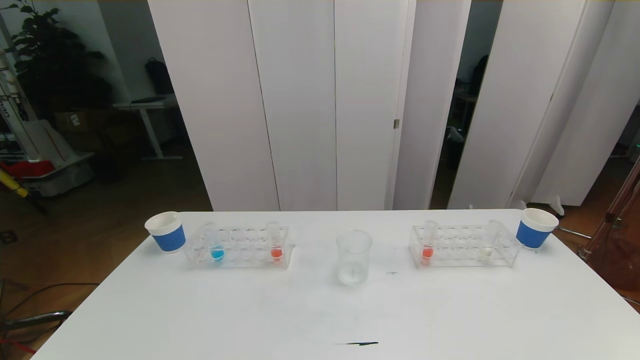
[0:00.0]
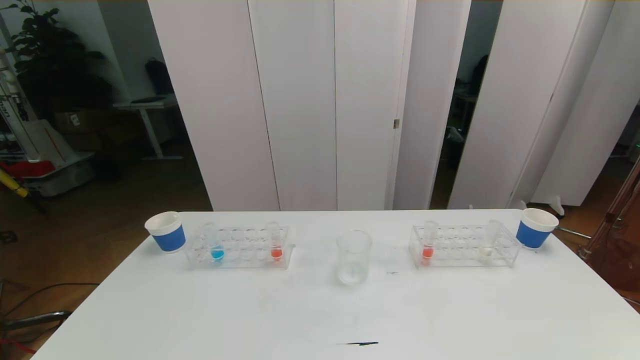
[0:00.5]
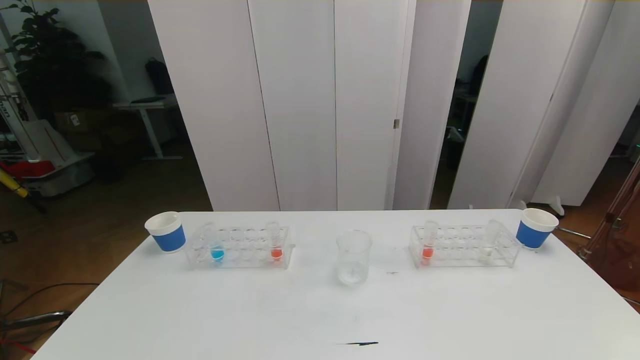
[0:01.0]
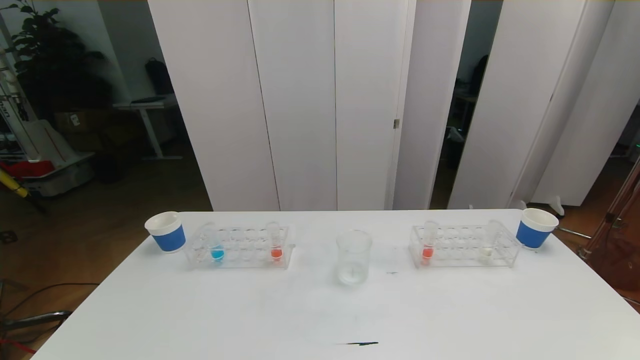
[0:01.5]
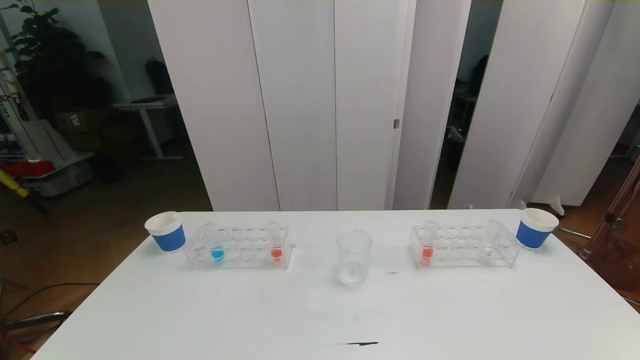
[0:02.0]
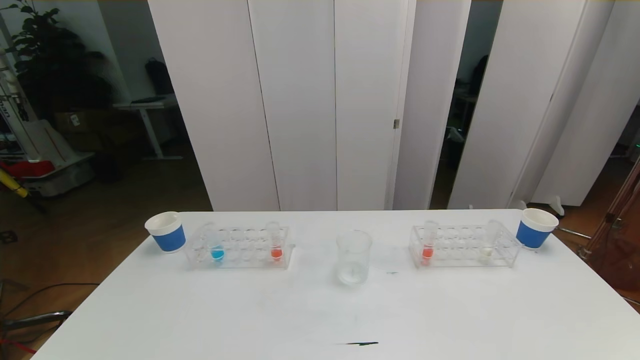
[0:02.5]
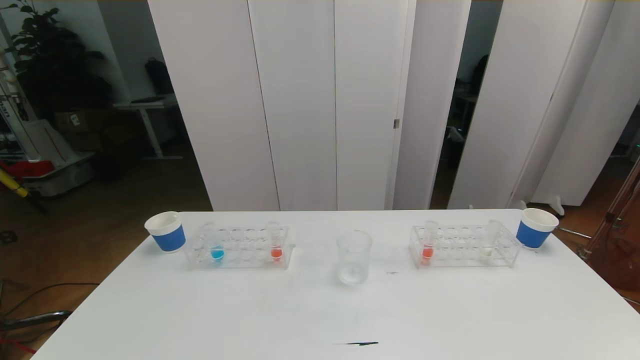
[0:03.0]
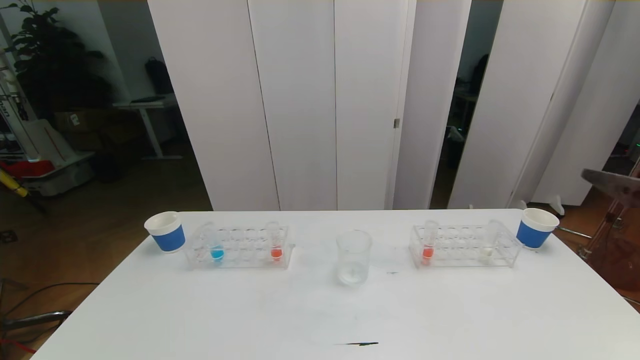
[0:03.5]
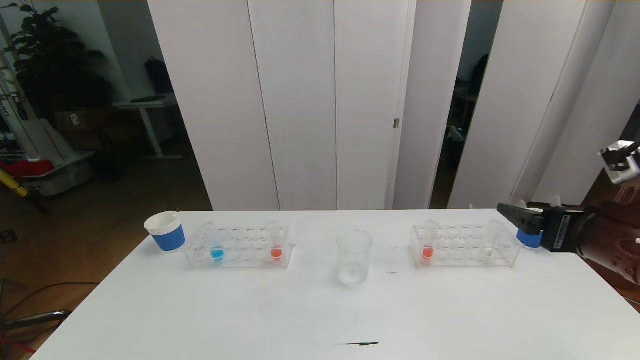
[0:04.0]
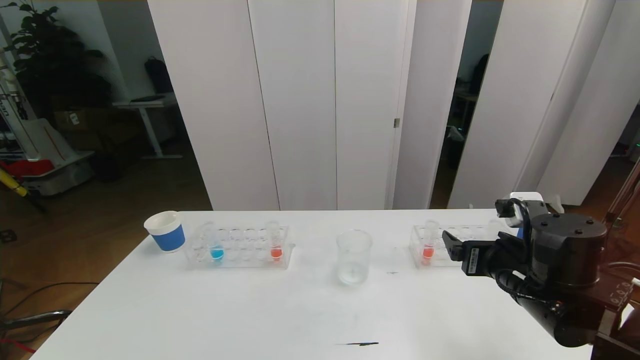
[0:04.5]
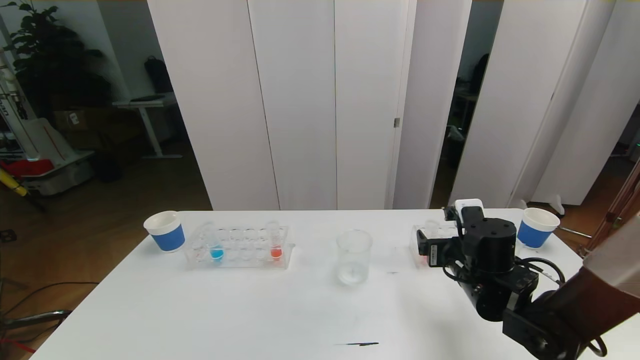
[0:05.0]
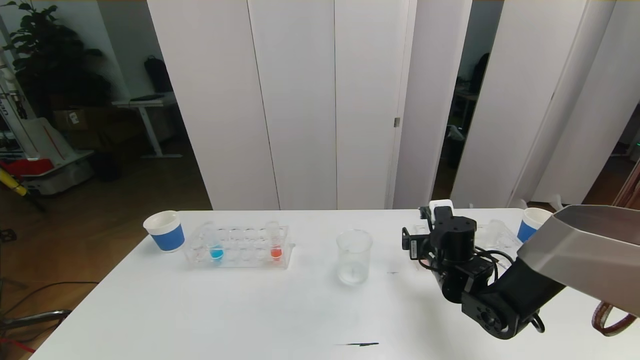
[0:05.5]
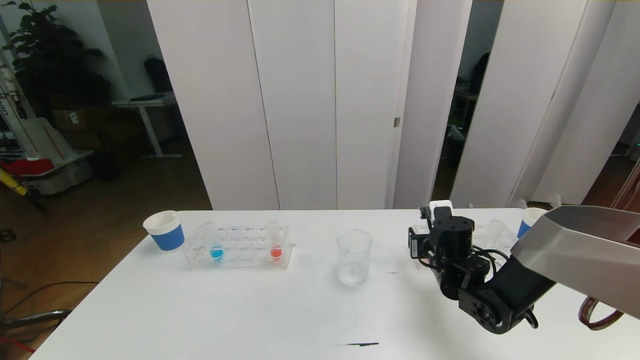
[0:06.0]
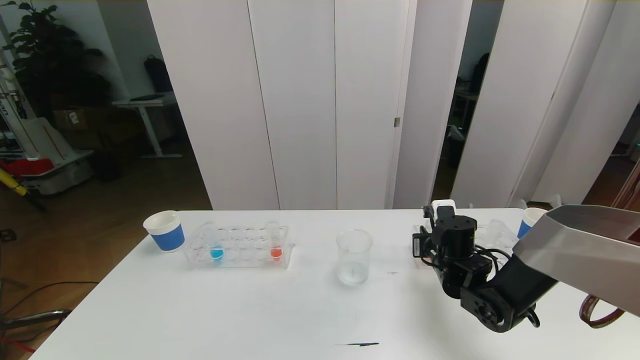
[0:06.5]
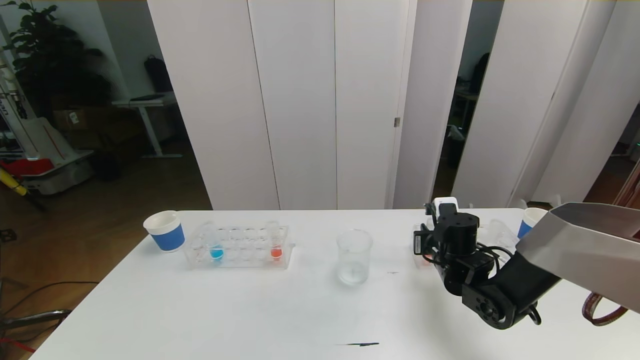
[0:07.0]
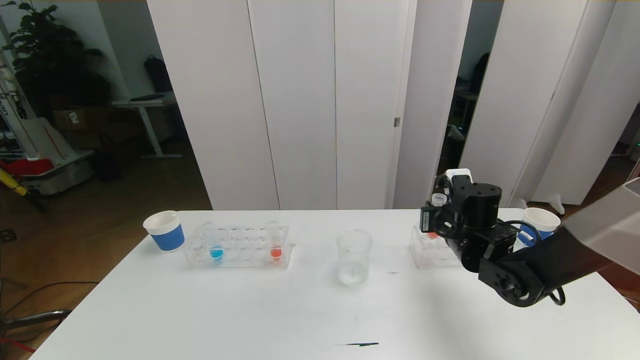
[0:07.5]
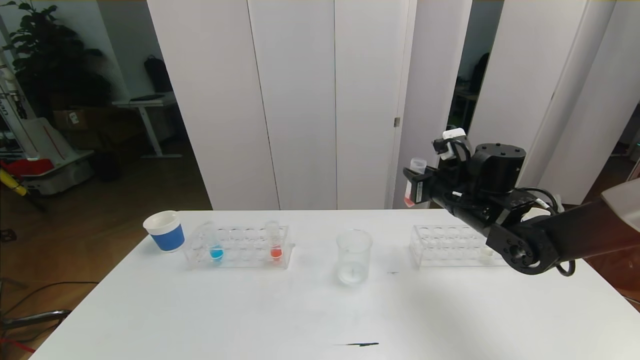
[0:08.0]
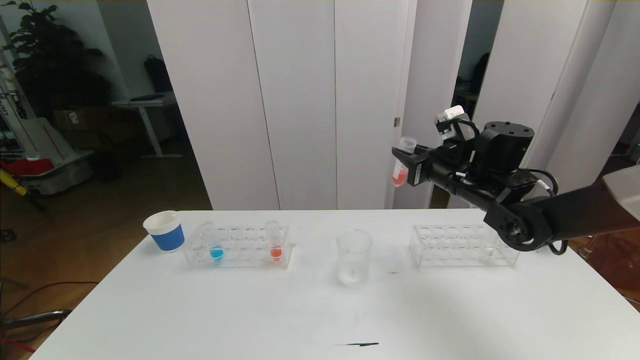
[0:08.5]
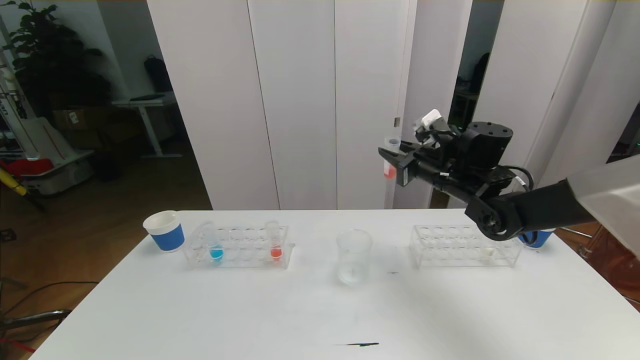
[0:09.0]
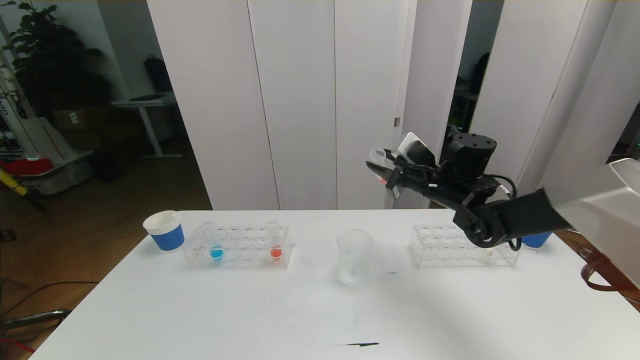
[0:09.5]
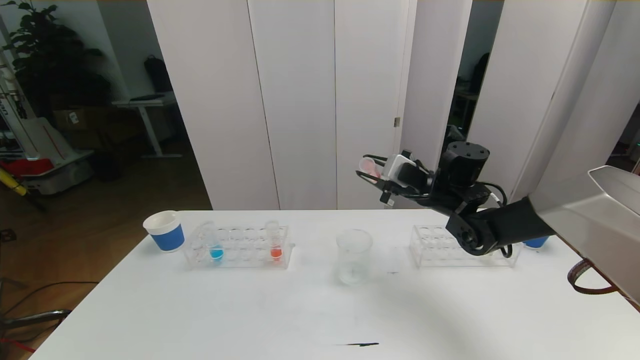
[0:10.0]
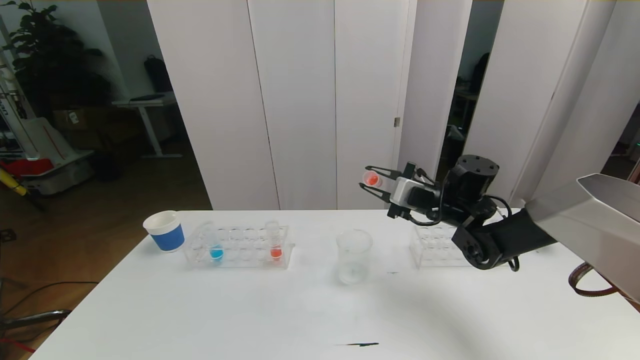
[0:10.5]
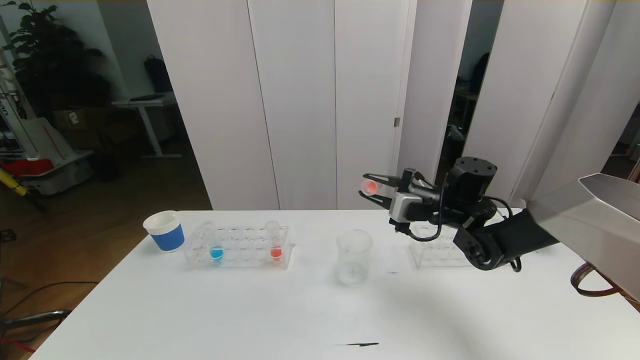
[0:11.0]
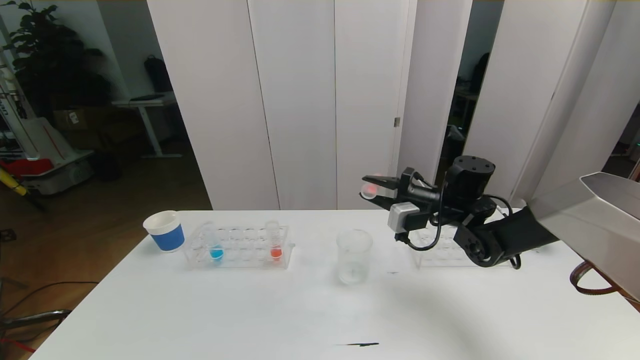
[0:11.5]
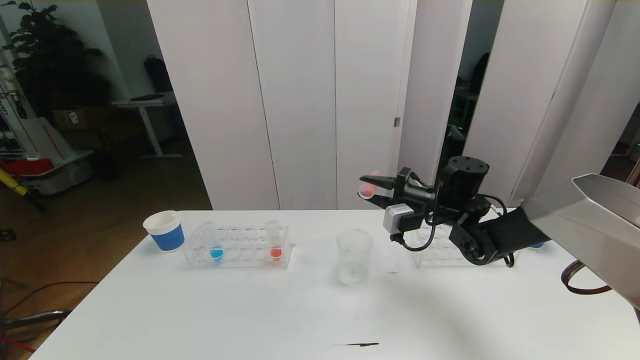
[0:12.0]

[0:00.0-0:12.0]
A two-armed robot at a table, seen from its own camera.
Task of the whole recording: pick up the test tube with red pigment the test tube with blue pigment and the test tube with white pigment by grippers and pour them into the beaker.
0:00.0 to 0:02.0: Both grippers stay put.
0:02.0 to 0:04.0: The right gripper goes about 25 cm forward and upward.
0:04.0 to 0:06.0: The right gripper travels downward, forward and to the left by some 25 cm, and closes.
0:06.0 to 0:08.0: The right gripper goes roughly 15 cm upward, and closes up.
0:08.0 to 0:10.0: The right gripper ends up about 5 cm from where it was.

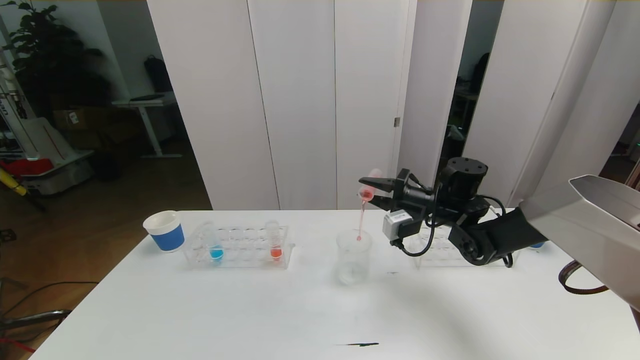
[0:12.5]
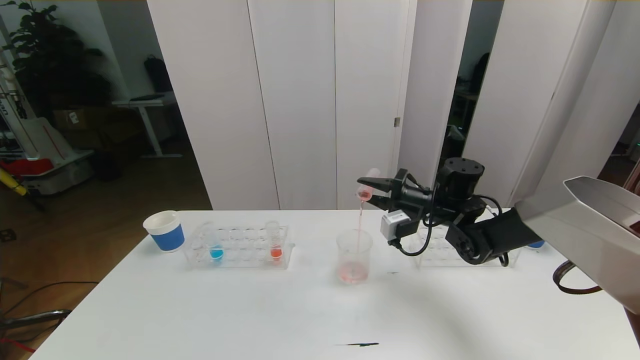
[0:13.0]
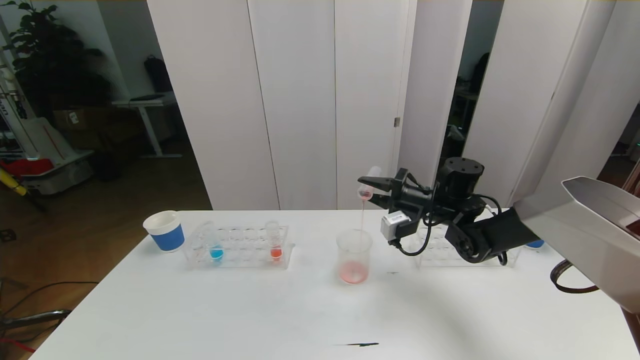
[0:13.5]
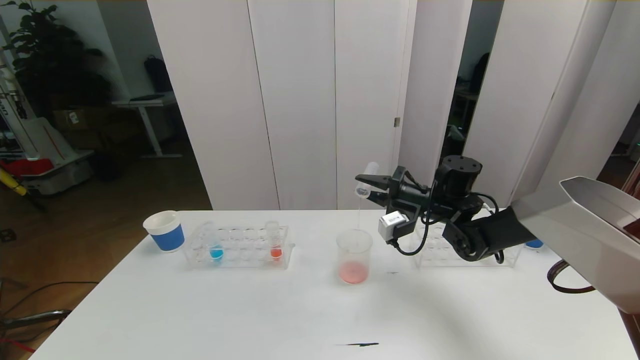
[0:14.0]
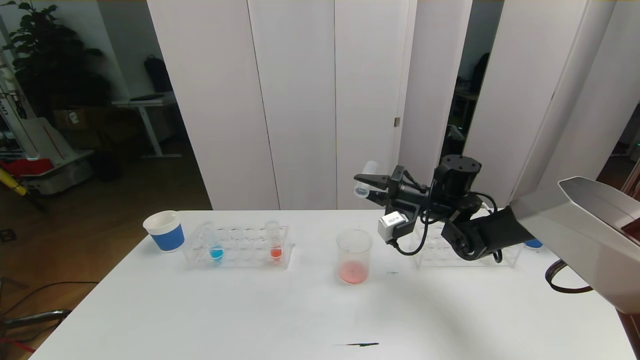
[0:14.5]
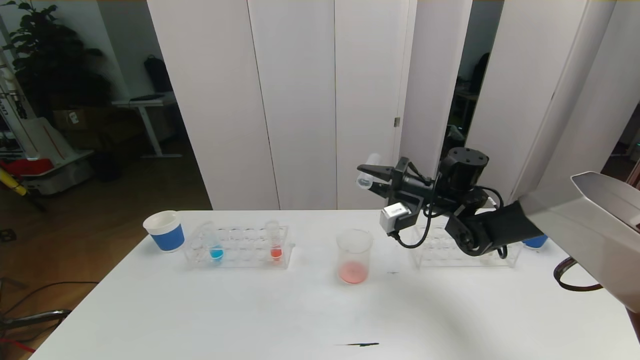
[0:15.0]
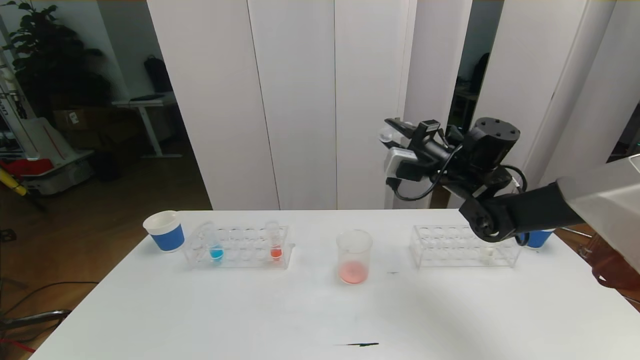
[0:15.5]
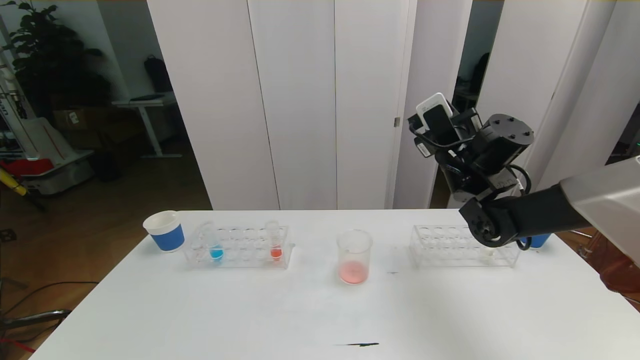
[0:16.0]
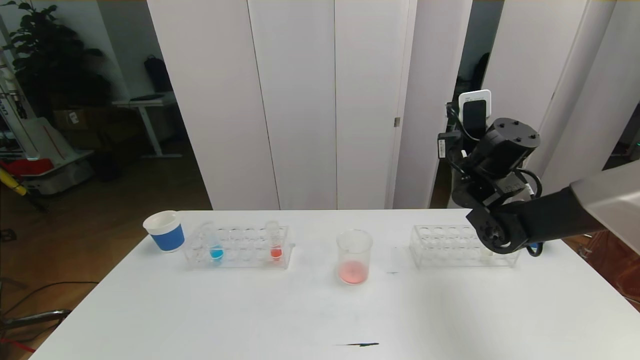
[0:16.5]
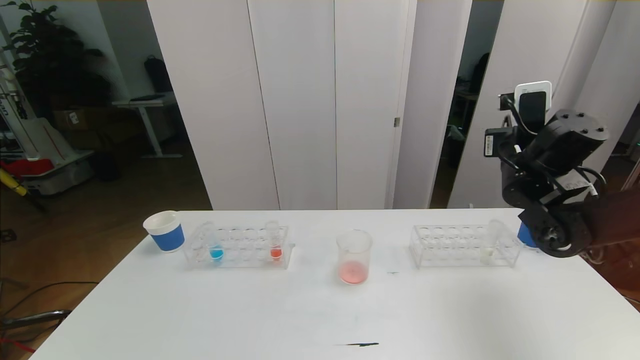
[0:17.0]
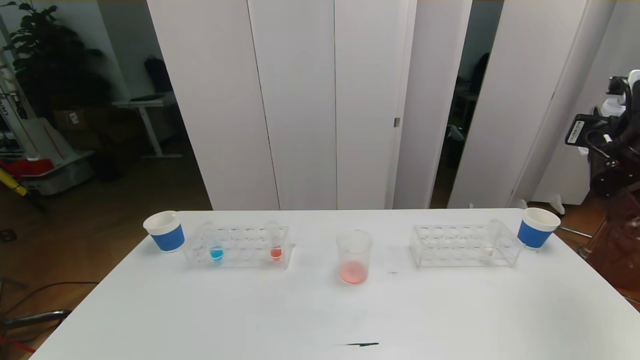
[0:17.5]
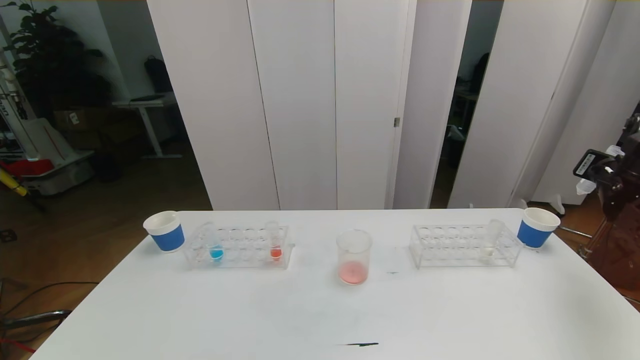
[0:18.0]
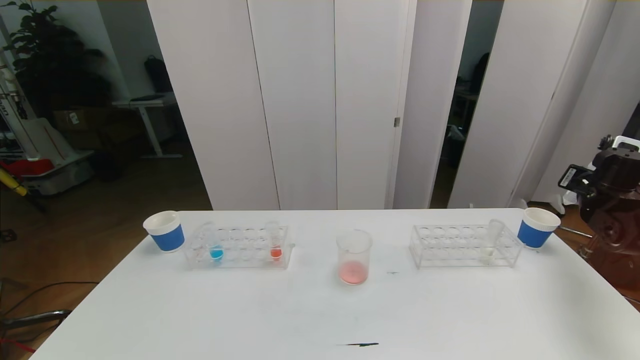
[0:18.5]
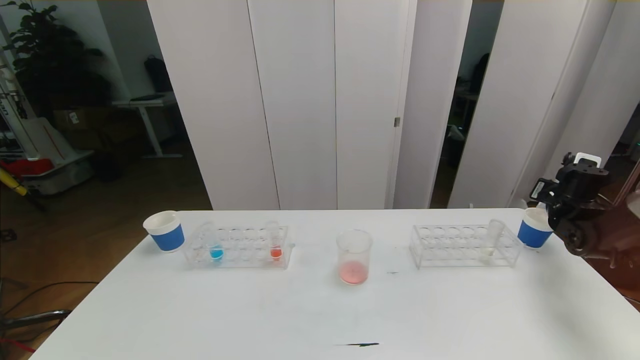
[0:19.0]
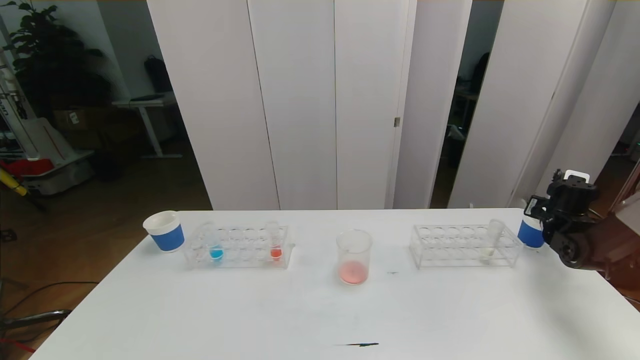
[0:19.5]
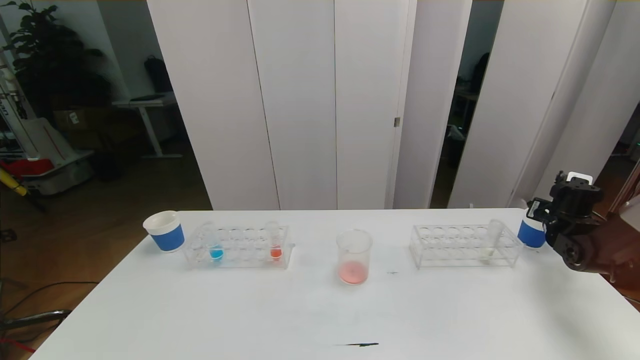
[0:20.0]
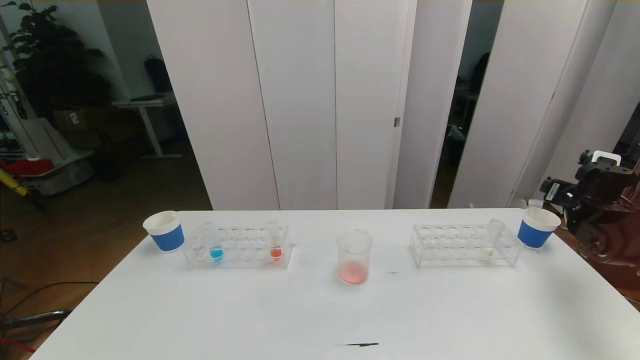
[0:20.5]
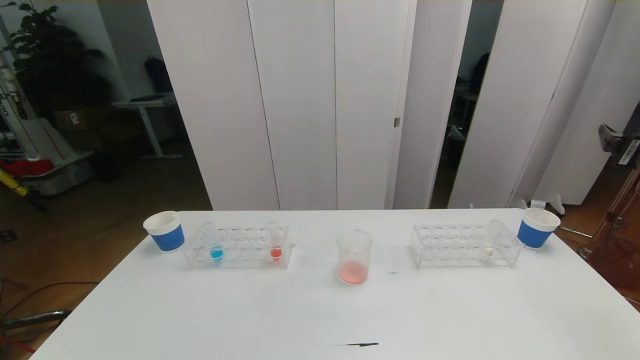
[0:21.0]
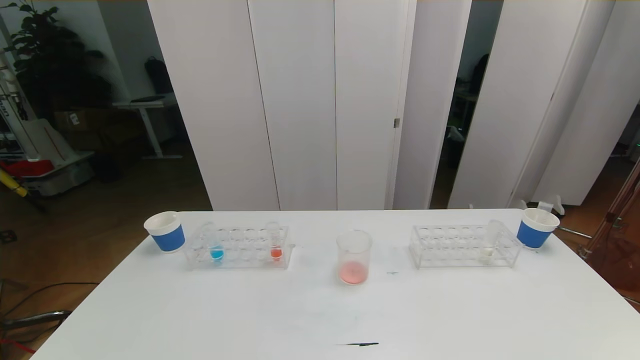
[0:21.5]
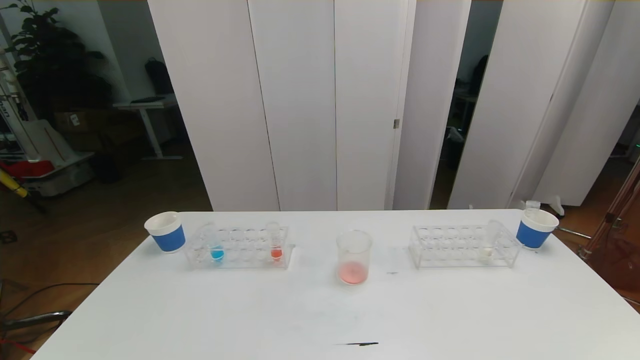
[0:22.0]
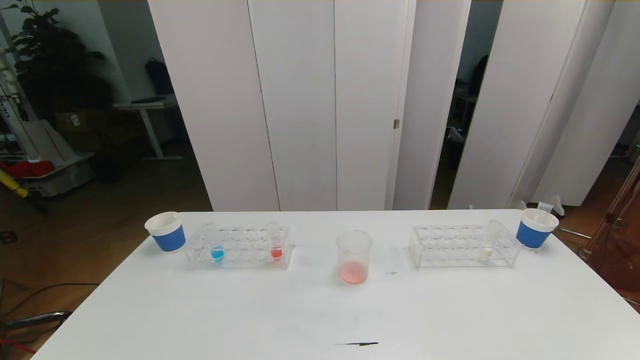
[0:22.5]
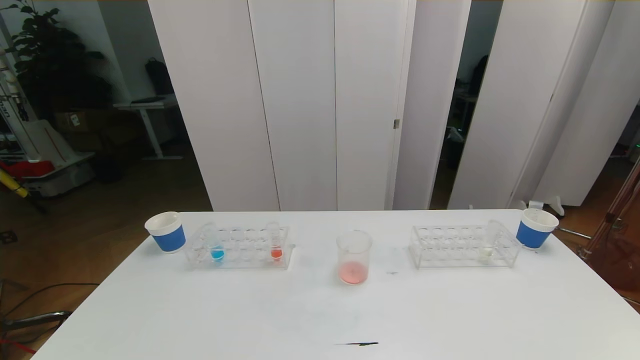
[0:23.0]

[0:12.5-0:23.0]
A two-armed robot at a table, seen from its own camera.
Task of the whole recording: pick up the test tube with red pigment the test tube with blue pigment and the test tube with white pigment by grippers and pour them into the beaker.
0:12.5 to 0:14.5: There are only small adjustments of the grippers.
0:14.5 to 0:16.5: The right gripper shifts approximately 10 cm upward.
0:16.5 to 0:19.0: The right gripper goes roughly 25 cm to the right and downward.
0:19.0 to 0:21.0: The right gripper moves backward and upward, about 20 cm, and opens its fingers.
0:21.0 to 0:23.0: The right gripper goes roughly 35 cm backward and downward.
